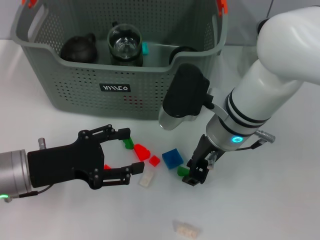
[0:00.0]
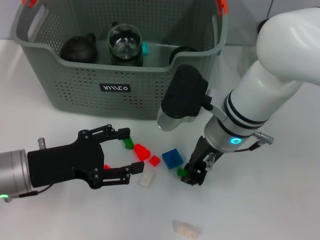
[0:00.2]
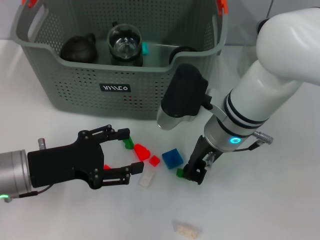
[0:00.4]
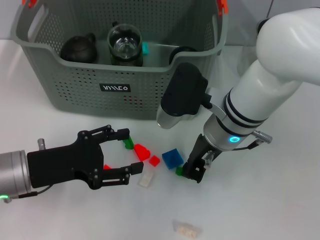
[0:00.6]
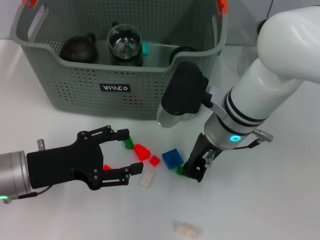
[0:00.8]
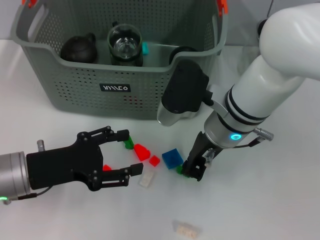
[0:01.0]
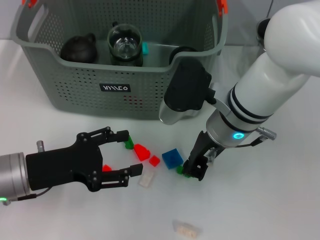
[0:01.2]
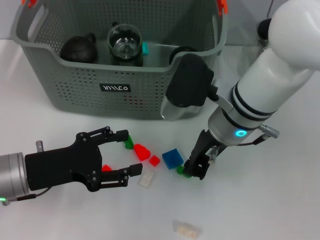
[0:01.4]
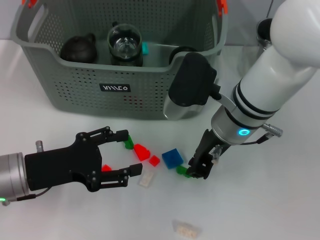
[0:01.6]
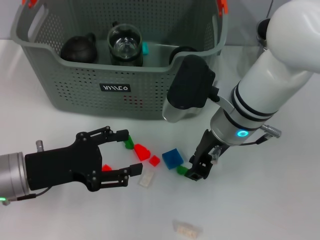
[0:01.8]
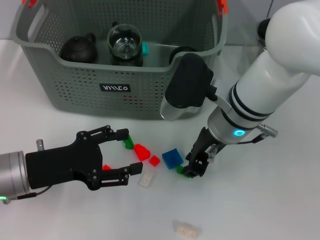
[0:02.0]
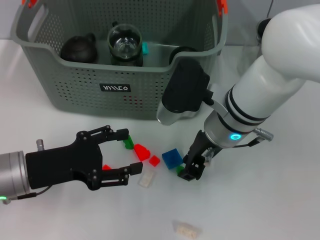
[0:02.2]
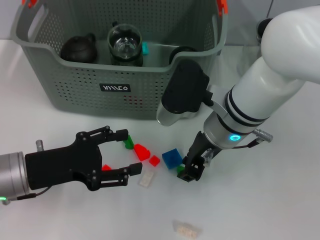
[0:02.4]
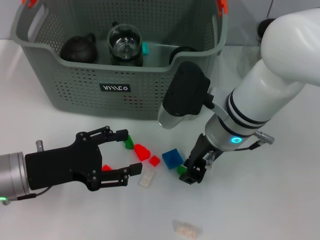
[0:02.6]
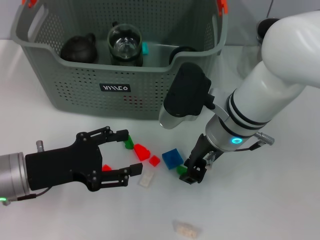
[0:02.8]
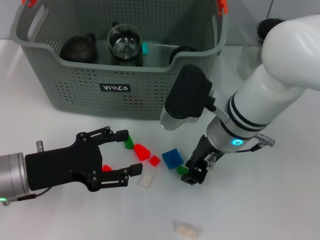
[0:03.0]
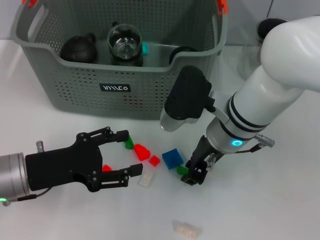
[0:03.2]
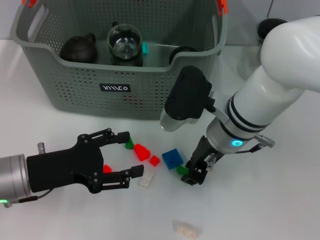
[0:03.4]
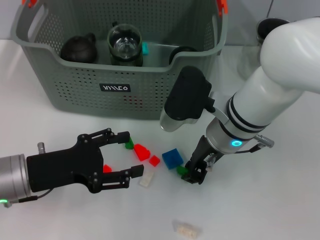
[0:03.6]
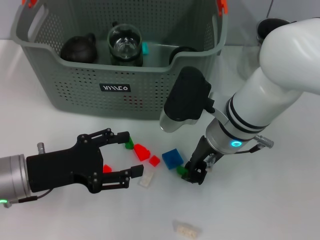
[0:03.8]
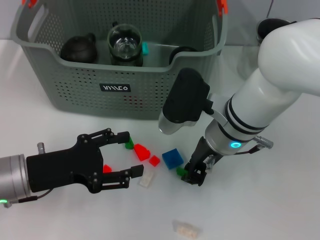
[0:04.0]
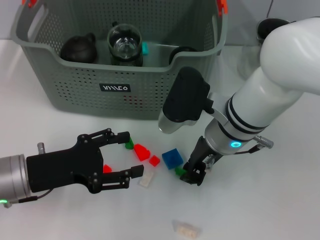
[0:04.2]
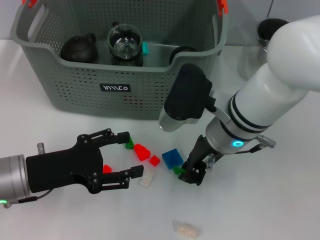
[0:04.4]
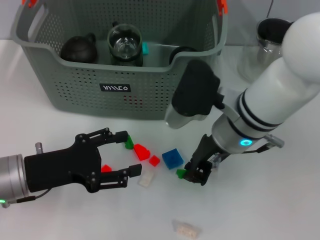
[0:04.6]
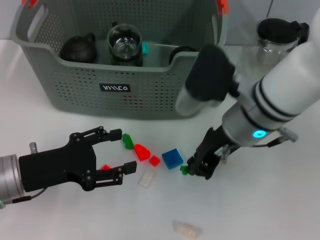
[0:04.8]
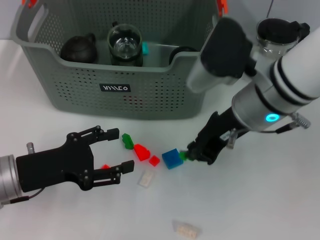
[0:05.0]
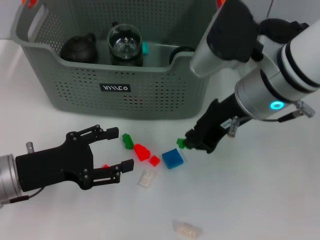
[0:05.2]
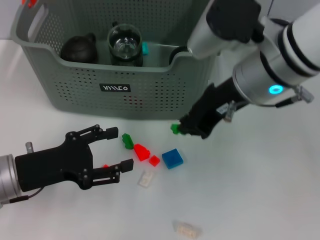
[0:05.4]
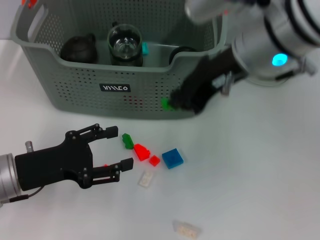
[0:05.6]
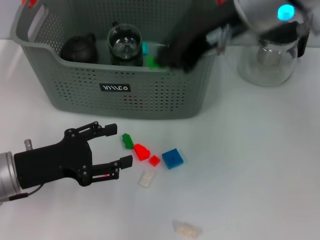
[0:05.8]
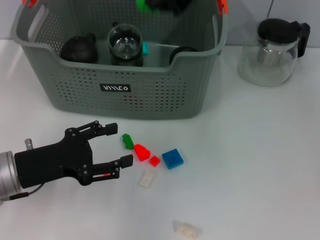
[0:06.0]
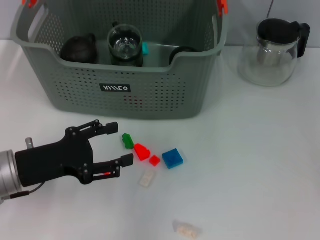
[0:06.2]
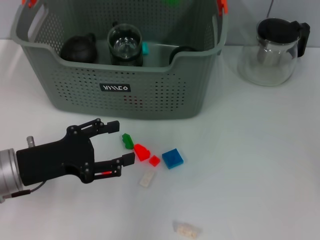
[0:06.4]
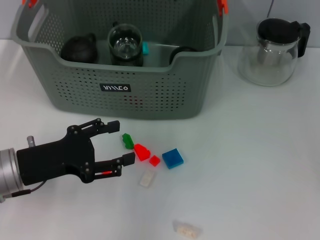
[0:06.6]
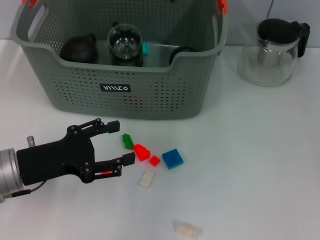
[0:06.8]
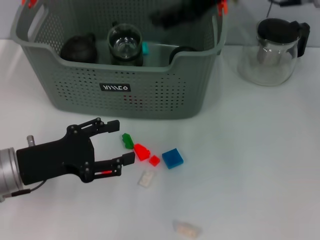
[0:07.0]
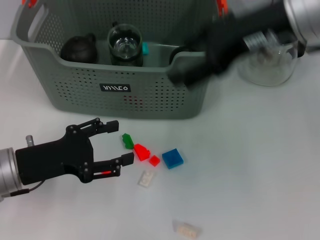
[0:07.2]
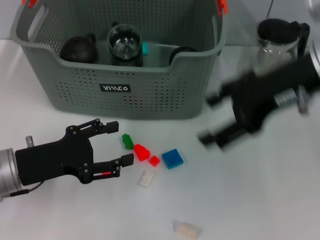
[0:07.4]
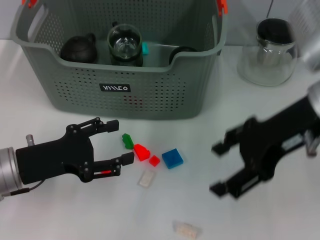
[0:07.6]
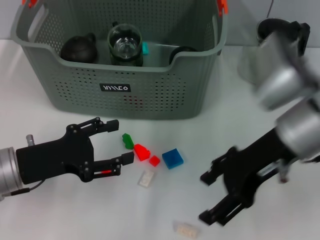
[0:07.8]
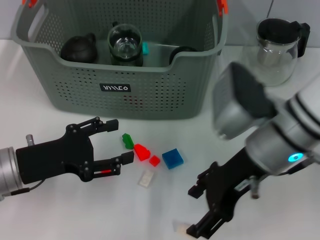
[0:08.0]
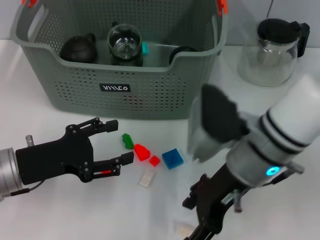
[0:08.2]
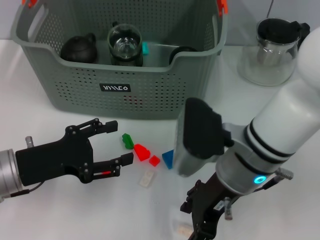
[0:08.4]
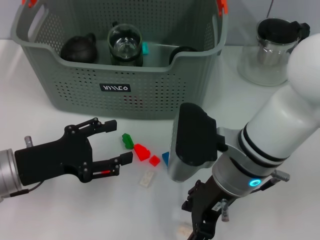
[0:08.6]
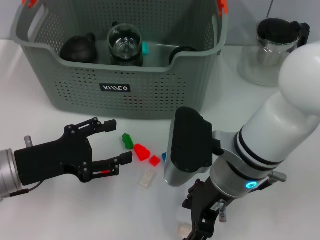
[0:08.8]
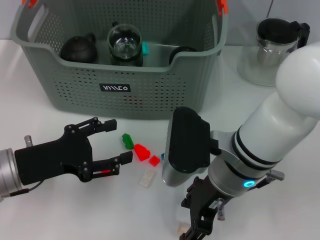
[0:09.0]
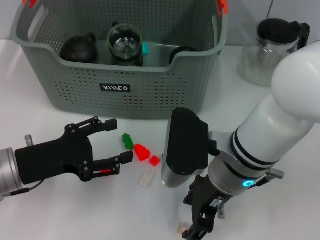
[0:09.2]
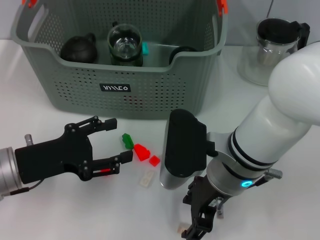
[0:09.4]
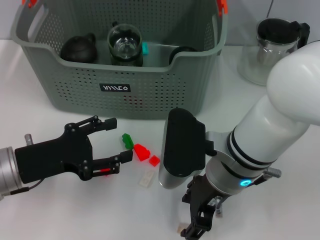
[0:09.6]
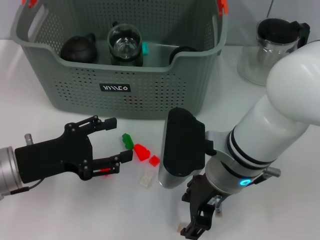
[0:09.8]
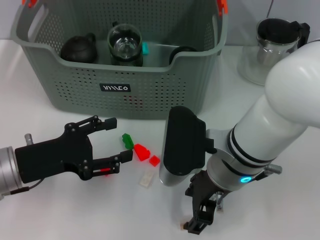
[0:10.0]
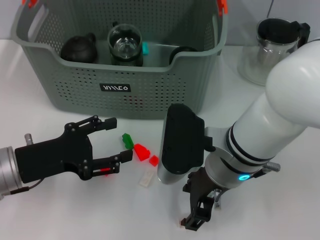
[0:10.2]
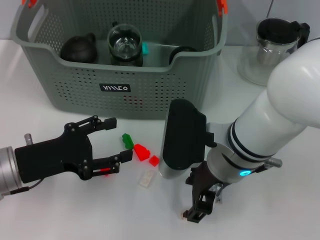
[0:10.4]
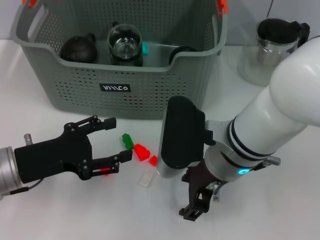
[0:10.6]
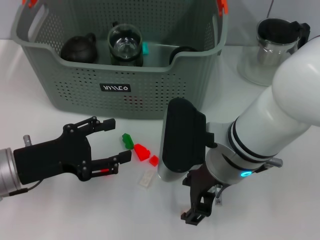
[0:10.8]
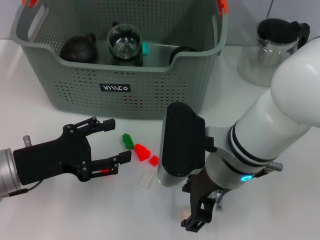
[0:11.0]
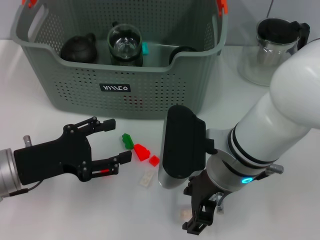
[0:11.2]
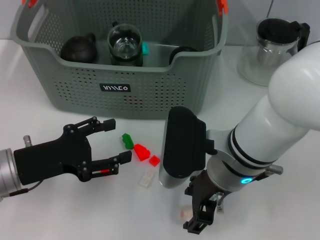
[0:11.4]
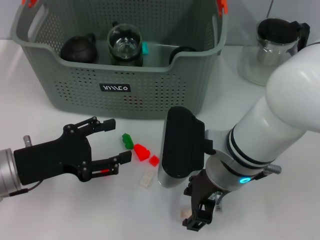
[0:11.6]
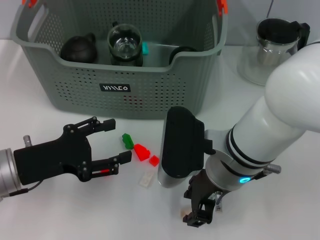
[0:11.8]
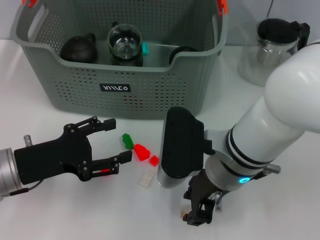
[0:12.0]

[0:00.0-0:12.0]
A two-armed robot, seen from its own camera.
Task of the whole recording: pick up the teacup on the table and place it into the storage bin, pick up the block on the table and place it into the storage bin.
Step, 0.0 to 4.0 s: Grasp the green block with right gripper.
Step, 4.2 to 7.0 s: Place the green block in the storage box with right gripper.
0.0 to 3.0 s: The grippers make only small movements.
3.0 to 4.4 s: Both grippers stay put.
4.4 to 6.0 s: The right gripper travels upward by about 20 cm.
6.0 to 7.6 s: The right gripper heads downward, to the right and backward, covering some 15 cm, and opens up.
7.6 to 9.0 s: The right gripper shifts some 15 cm downward and to the left.
9.0 to 10.4 s: There are only small adjustments of the grippers.
10.4 to 12.0 s: Both grippers stay about where they are.

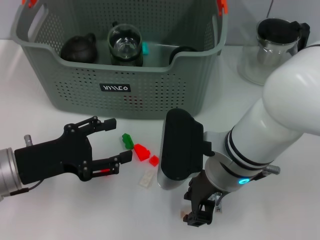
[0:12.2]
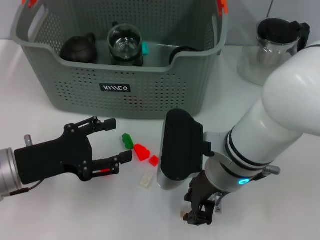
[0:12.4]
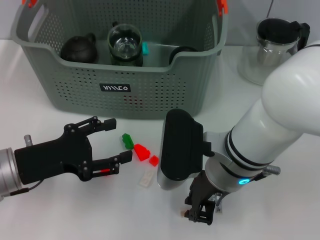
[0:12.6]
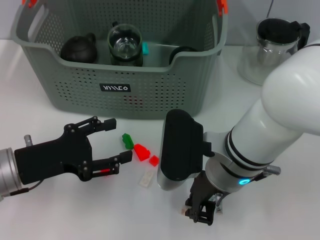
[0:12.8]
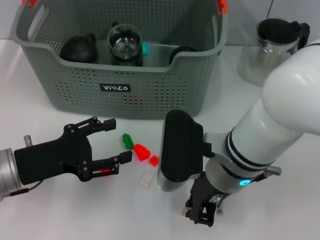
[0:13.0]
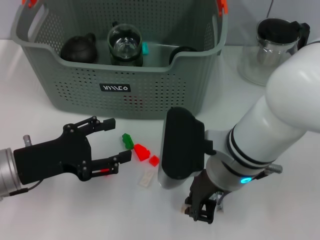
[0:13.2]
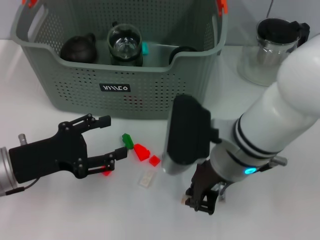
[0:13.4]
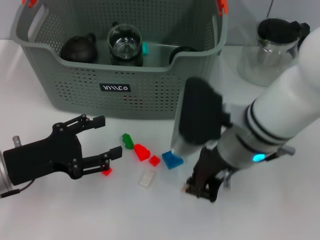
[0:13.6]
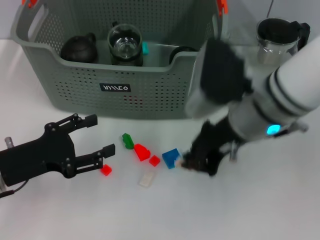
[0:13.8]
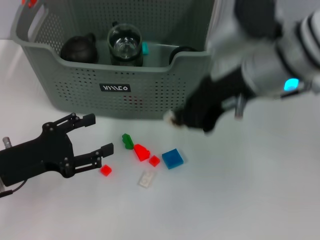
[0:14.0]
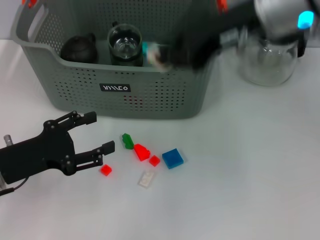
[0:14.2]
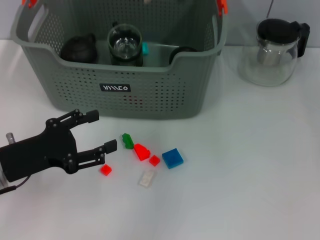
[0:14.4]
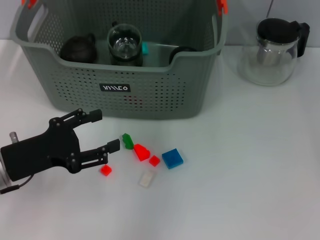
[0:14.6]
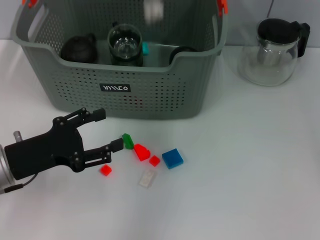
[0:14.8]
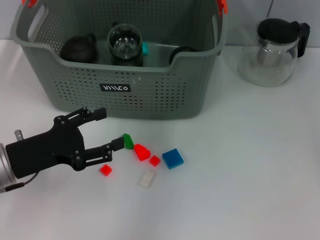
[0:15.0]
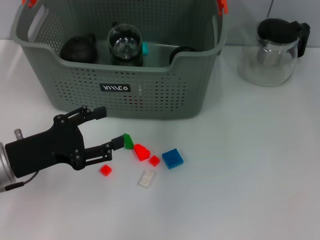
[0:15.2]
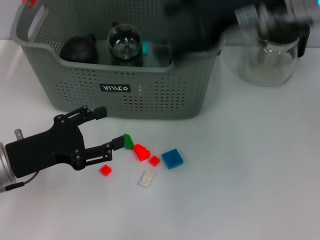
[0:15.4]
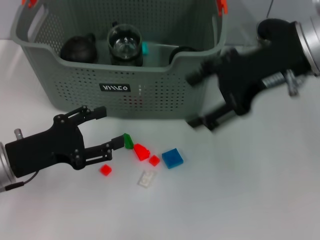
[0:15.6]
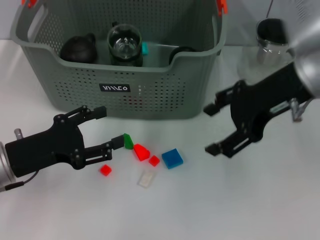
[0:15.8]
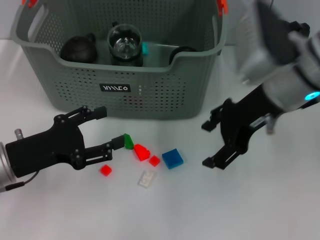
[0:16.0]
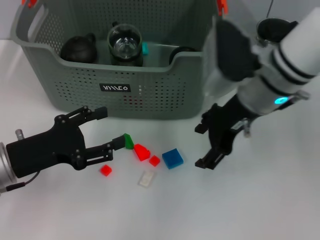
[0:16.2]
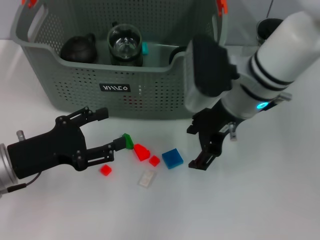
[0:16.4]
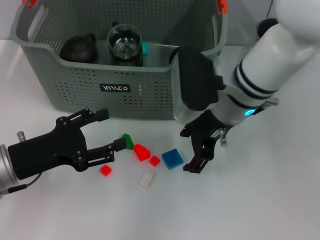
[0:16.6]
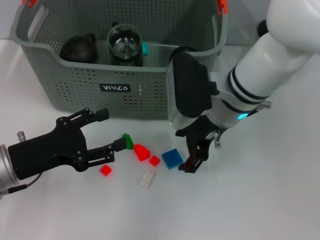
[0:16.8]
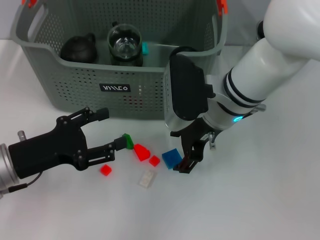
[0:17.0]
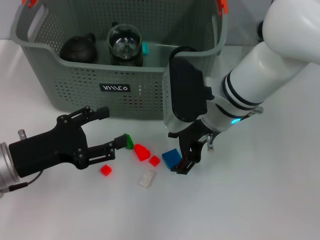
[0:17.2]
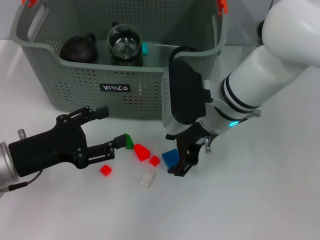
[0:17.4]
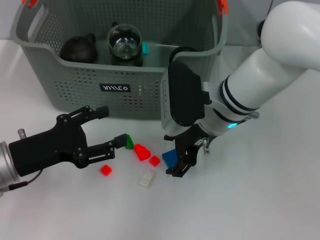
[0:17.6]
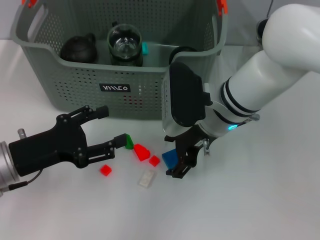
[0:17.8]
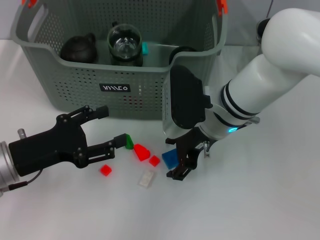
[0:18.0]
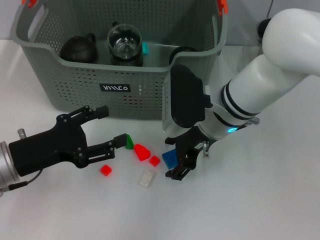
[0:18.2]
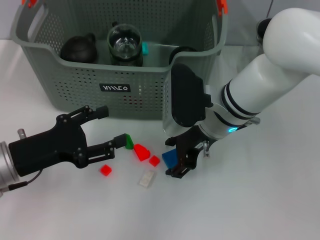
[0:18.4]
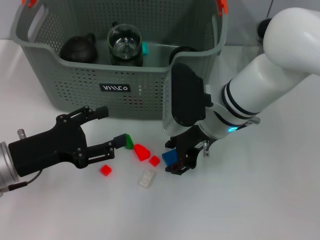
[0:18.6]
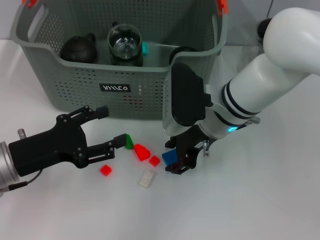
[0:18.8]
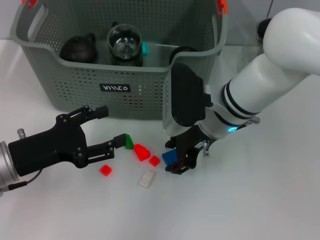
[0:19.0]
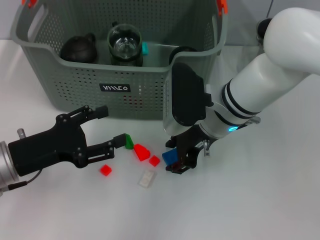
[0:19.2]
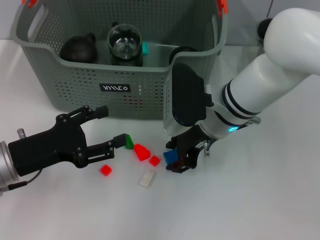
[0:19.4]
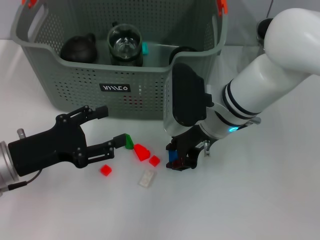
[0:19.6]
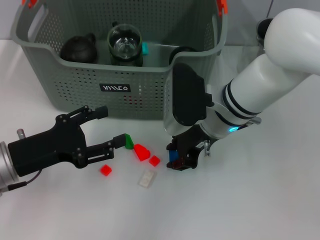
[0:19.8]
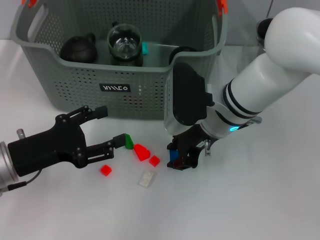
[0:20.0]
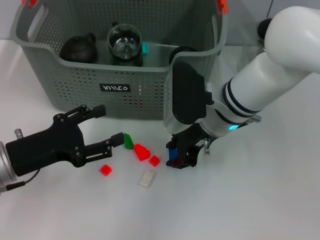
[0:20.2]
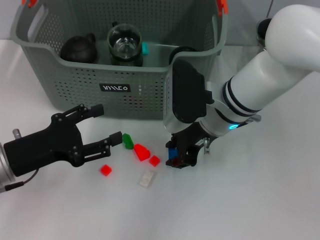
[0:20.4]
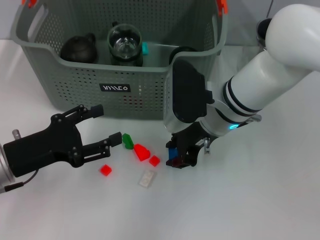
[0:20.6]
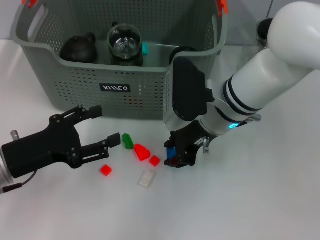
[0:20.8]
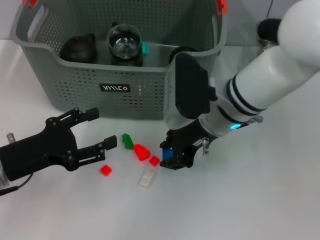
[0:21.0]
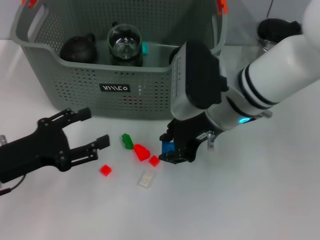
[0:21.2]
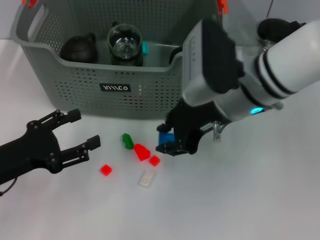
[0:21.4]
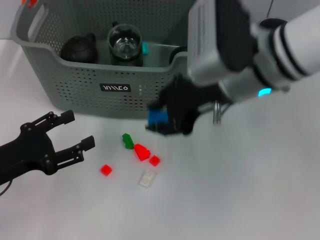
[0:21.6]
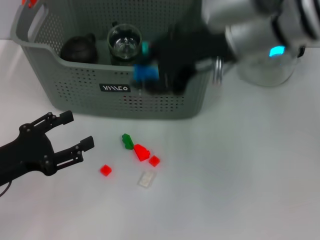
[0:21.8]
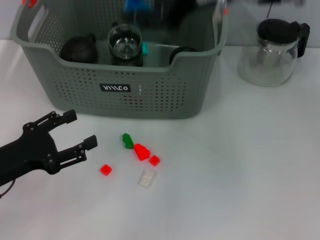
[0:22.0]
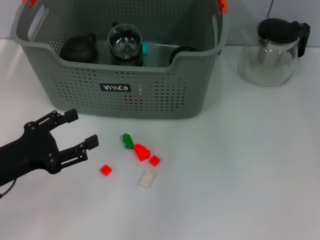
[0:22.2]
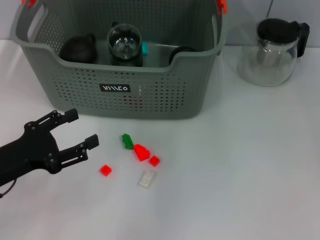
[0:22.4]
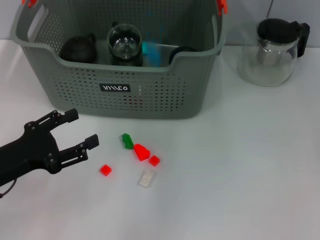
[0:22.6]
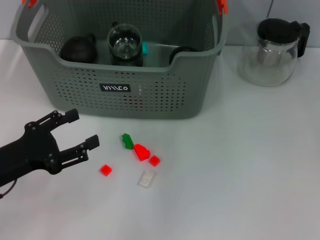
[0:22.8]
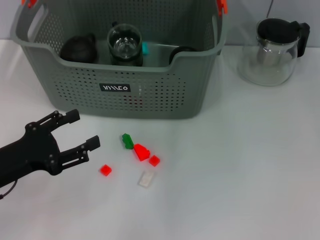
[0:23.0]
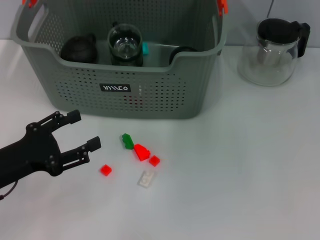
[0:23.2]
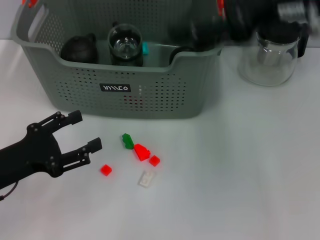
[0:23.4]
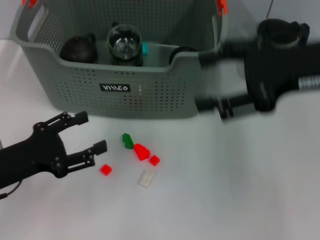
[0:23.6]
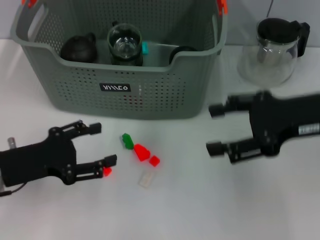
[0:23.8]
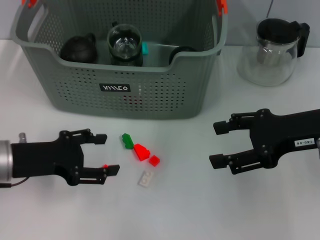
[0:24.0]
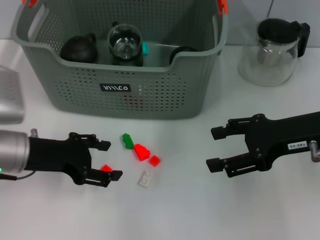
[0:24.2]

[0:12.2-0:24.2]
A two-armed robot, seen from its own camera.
Task of the whole recording: pick up the teacup on the table and place it into the storage bin, pick up the block on the table and place it into the storage bin.
Step, 12.8 to 14.4 s: Place the white block in the storage box with right gripper.
Step, 14.8 to 19.6 s: Grasp the dark blue block with right gripper.
Step, 19.8 to 22.6 s: Place the dark blue block in the storage box with right gripper.
12.2 to 13.8 s: The right gripper goes some 5 cm upward, and closes up.
13.8 to 15.2 s: The right gripper travels upward and forward by roughly 15 cm, and opens up.
15.2 to 16.6 s: The right gripper travels downward by some 15 cm, and opens its fingers.
16.6 to 18.2 s: There are only small adjustments of the grippers.
18.2 to 19.8 s: The right gripper closes.
19.8 to 21.2 s: The grippers stay close to where they were, moving slightly.
21.2 to 22.6 s: The right gripper shifts roughly 15 cm upward and forward.
22.6 to 24.2 s: The right gripper moves downward, backward and to the right, roughly 20 cm, and opens its fingers, while the left gripper moves forward, about 5 cm.
